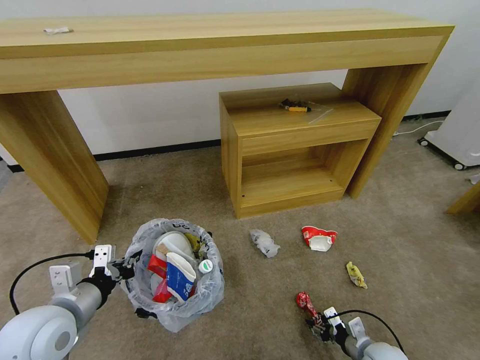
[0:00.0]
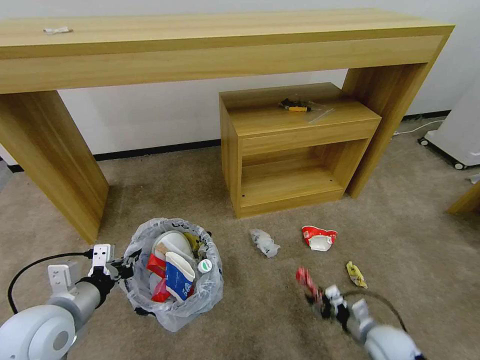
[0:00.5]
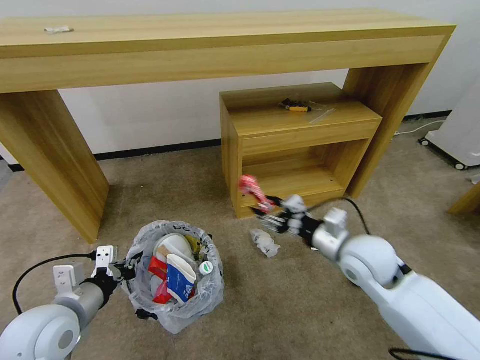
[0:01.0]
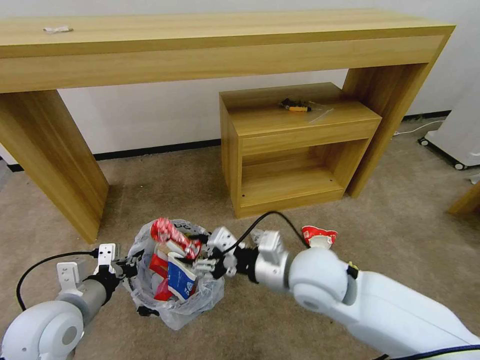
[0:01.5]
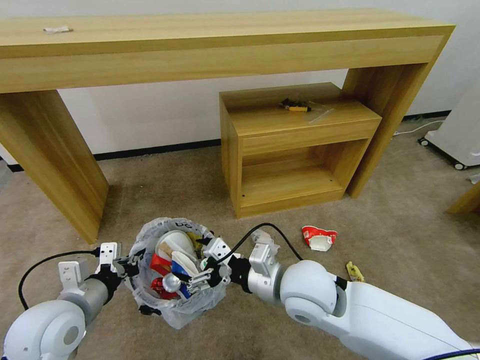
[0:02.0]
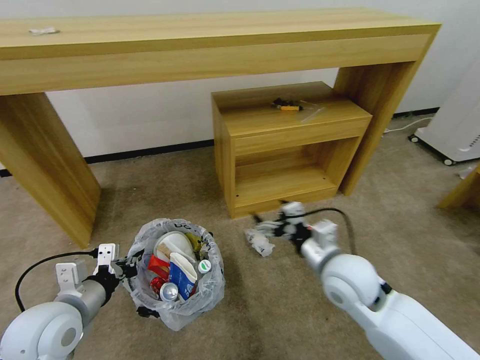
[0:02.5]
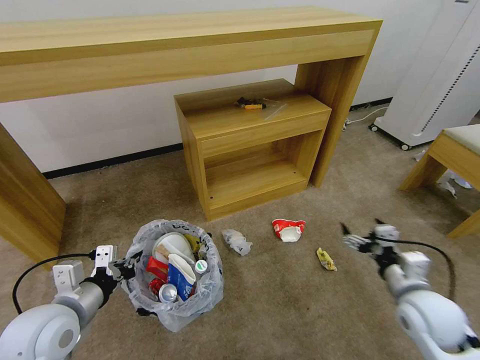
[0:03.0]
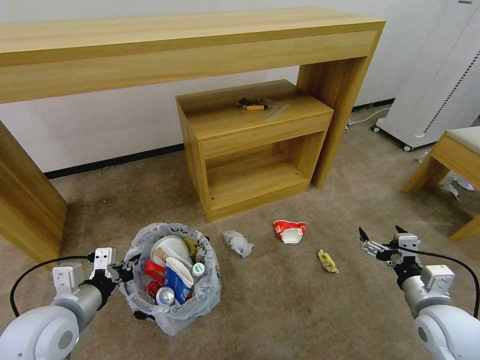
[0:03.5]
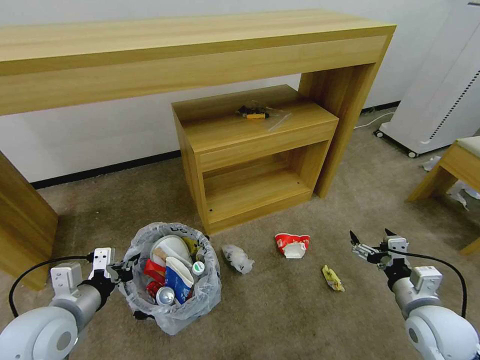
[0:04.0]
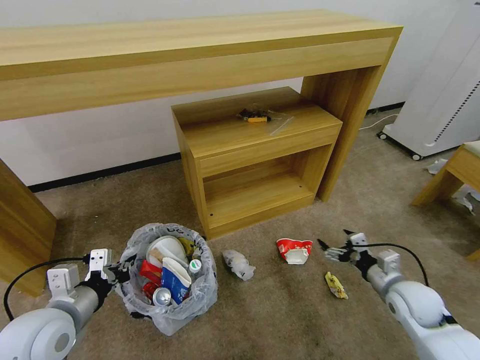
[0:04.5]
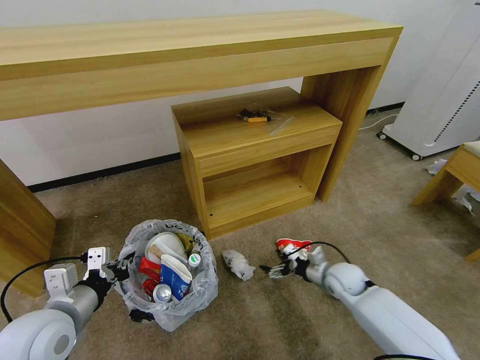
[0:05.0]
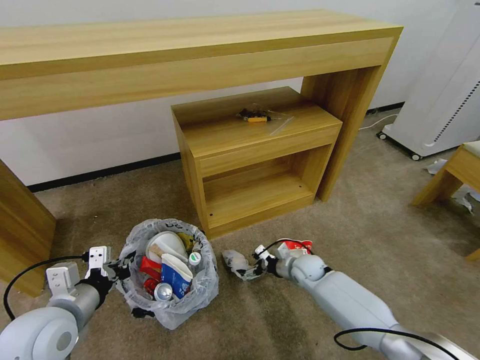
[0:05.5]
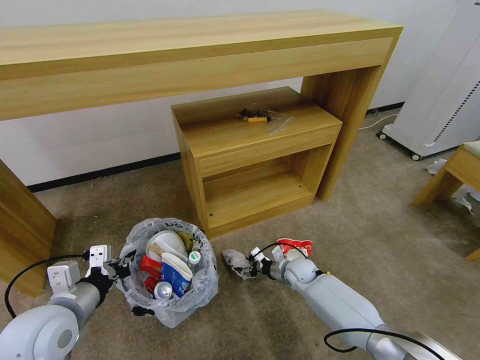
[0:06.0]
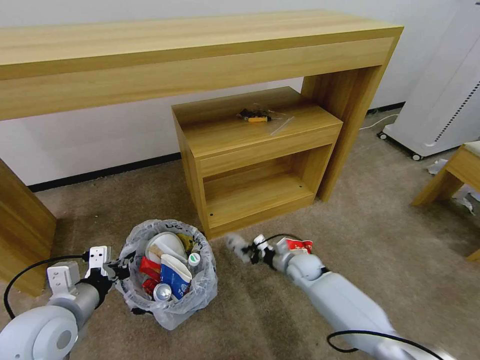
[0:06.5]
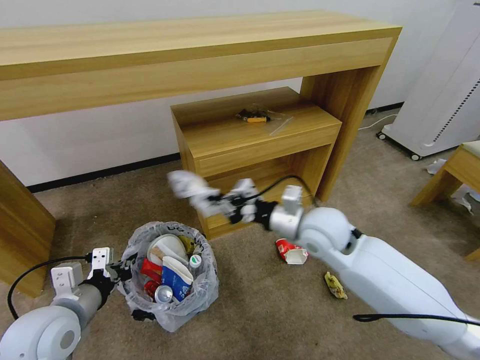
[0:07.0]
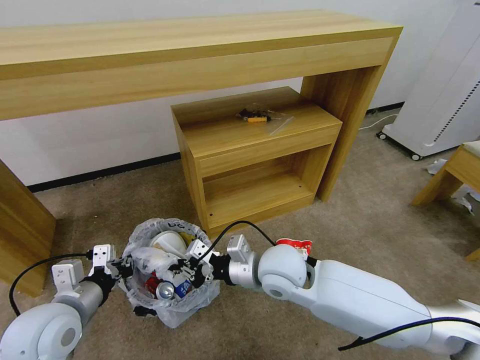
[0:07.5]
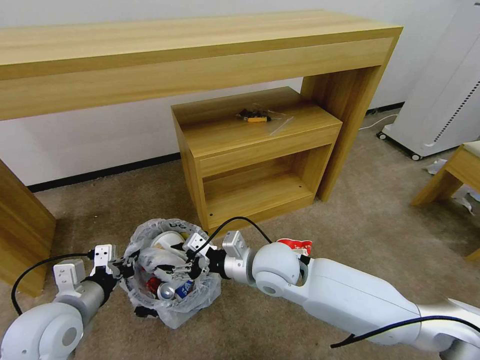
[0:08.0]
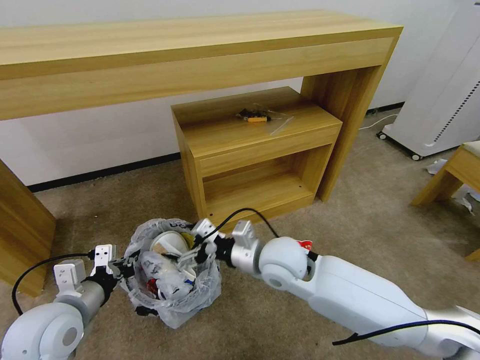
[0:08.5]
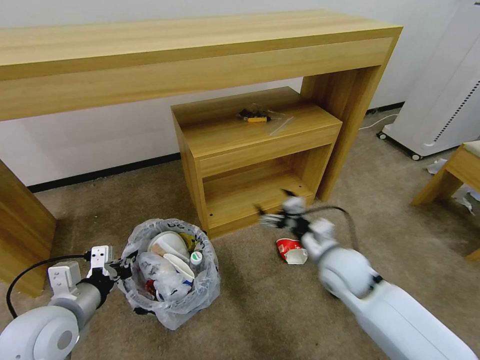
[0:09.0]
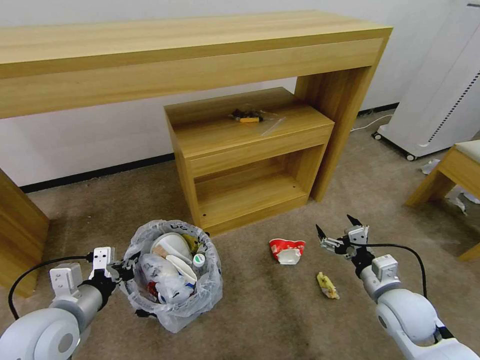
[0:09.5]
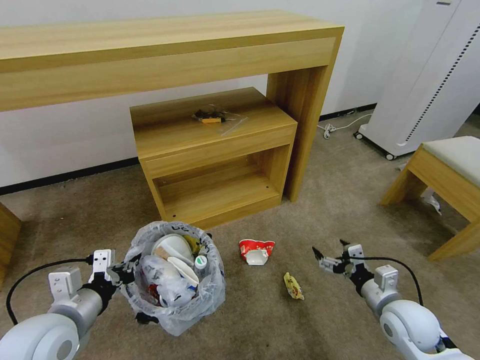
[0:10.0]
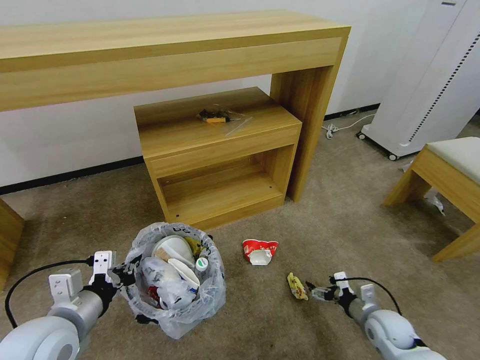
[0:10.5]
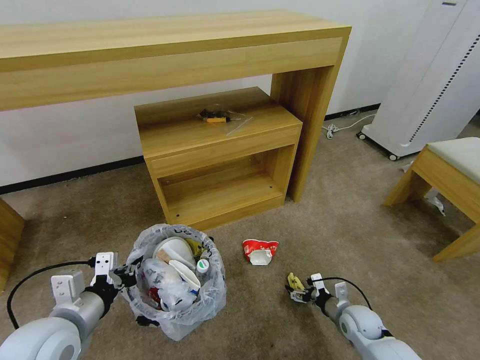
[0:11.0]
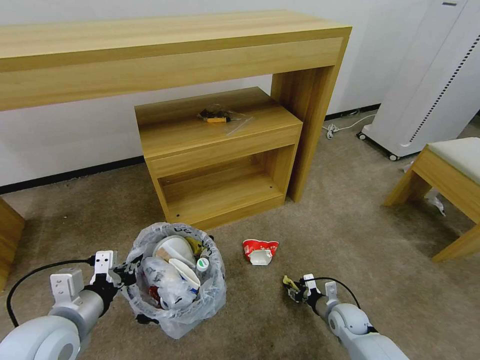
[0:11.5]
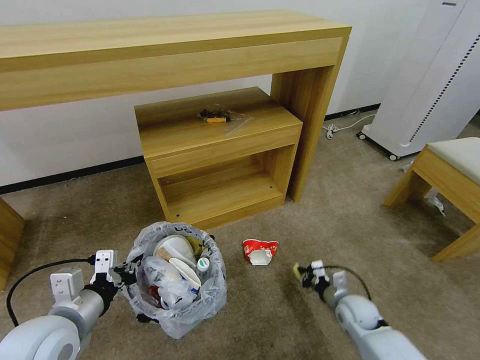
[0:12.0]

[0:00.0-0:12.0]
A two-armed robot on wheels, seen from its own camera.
Task of the whole recording: Pick up the trash bin and place the garbage on the floor into it.
0:00.0 to 0:02.0: The right gripper is displaced upward and to the left by some 35 cm, and opens.
0:02.0 to 0:04.0: The right gripper goes approximately 25 cm to the right.
0:04.0 to 0:06.0: The right gripper is displaced forward, downward and to the left by some 35 cm.
0:06.0 to 0:08.0: The right gripper moves upward, to the left and backward, roughly 30 cm, and closes and opens again.
0:08.0 to 0:10.0: The right gripper shifts about 30 cm to the right, and opens up.
0:10.0 to 0:12.0: The right gripper shifts roughly 15 cm downward and forward, and closes its fingers.

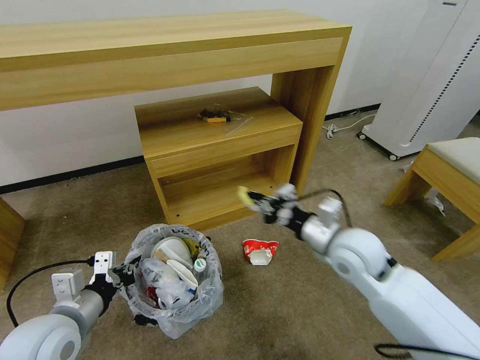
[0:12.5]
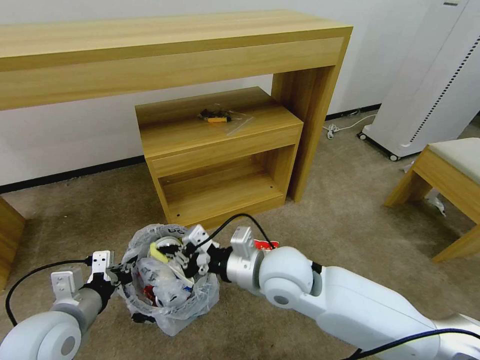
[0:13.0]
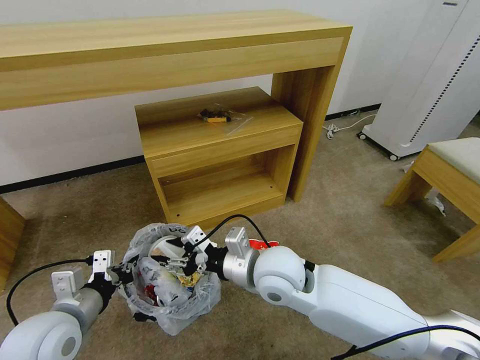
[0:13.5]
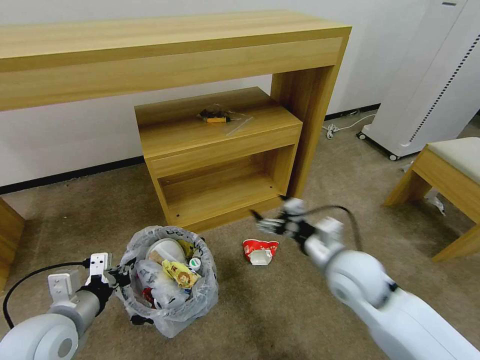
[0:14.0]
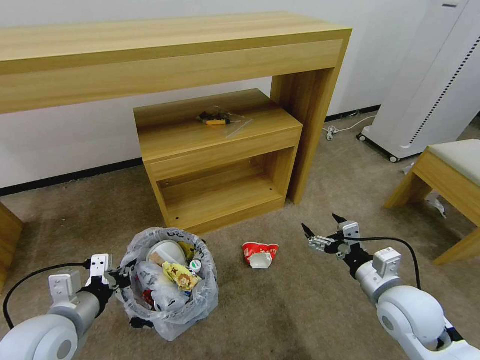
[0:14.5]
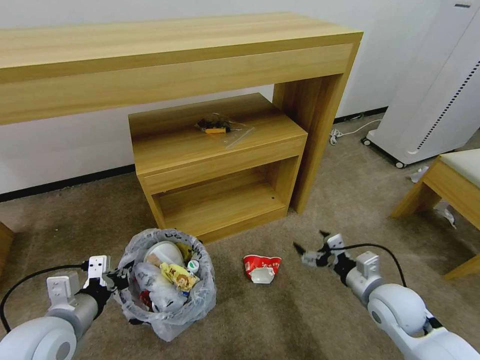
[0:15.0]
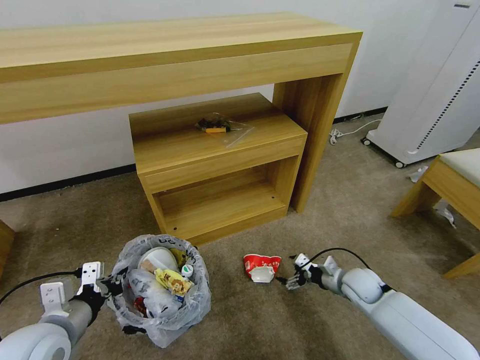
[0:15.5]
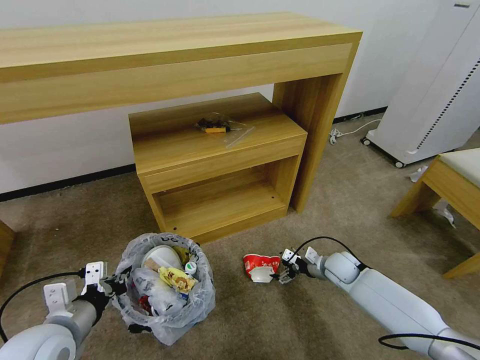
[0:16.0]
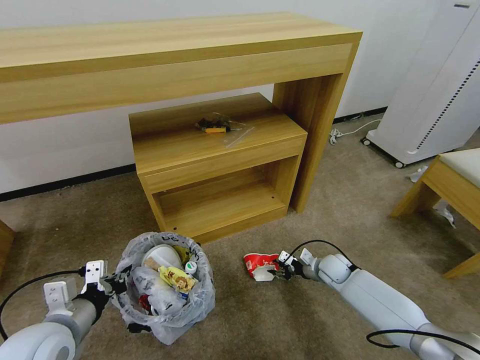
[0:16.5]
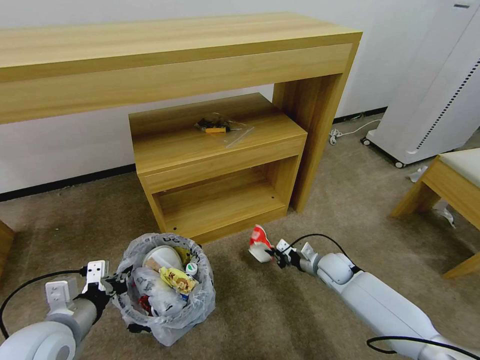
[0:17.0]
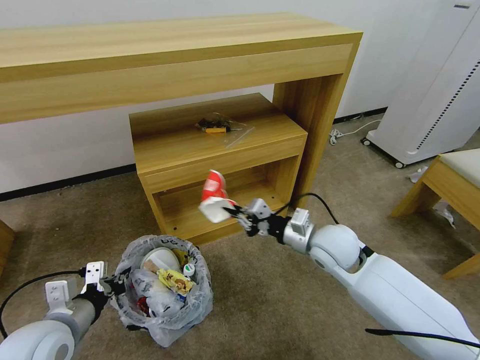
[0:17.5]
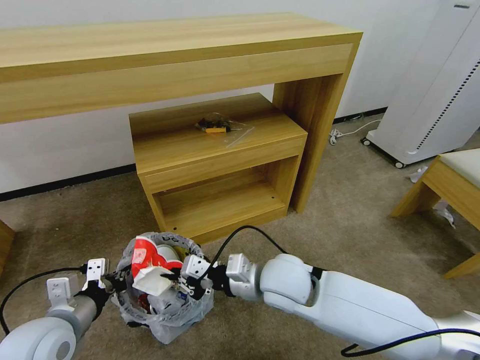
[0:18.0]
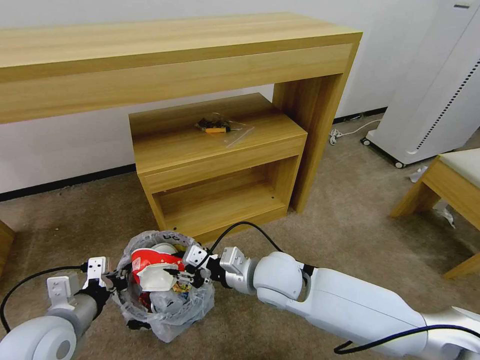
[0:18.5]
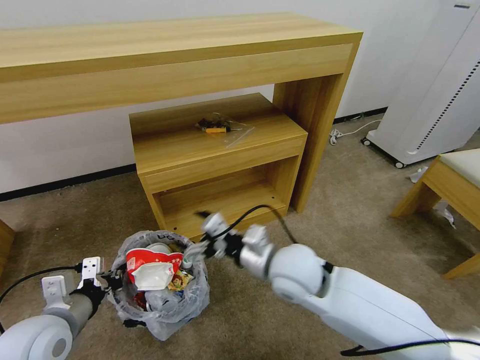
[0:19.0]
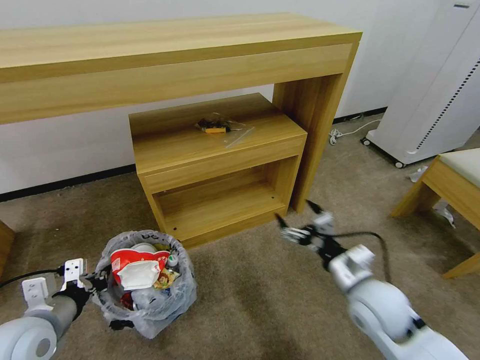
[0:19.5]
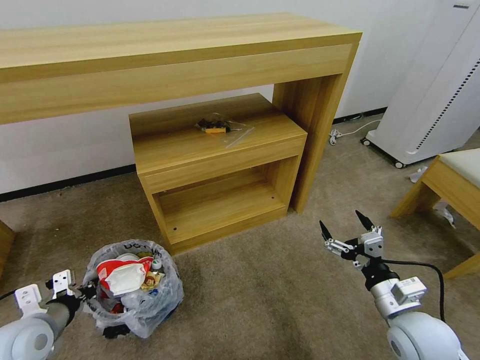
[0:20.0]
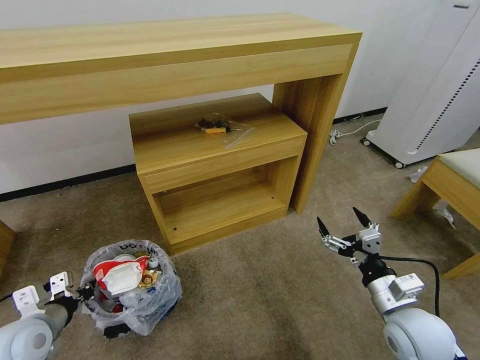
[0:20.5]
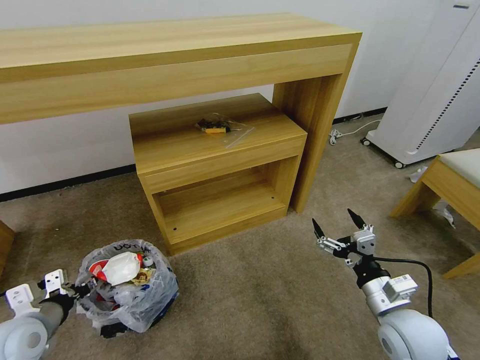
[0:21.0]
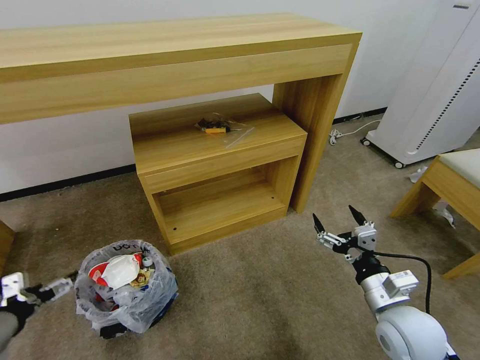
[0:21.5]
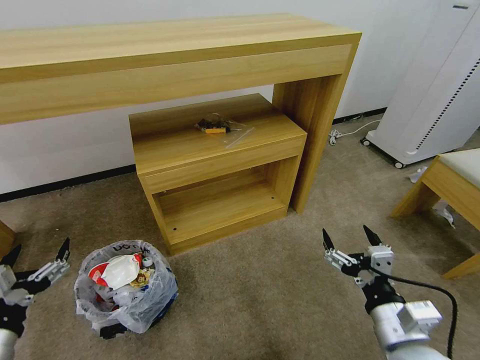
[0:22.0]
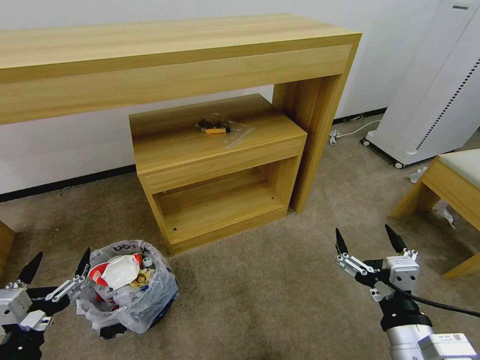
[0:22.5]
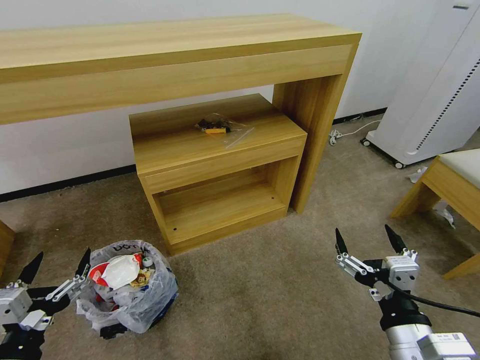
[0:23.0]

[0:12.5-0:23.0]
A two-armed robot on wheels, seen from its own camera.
Task of the whole recording: Pick up the trash bin and place the garbage on the floor into it.
0:12.5 to 0:14.5: The right gripper is displaced to the right, backward and downward by about 15 cm, and opens its fingers.
0:14.5 to 0:16.5: The right gripper moves downward and forward, approximately 25 cm, and closes up.
0:16.5 to 0:19.0: The right gripper shifts some 35 cm upward, to the left and backward, and opens up.
0:19.0 to 0:21.0: The left gripper heads to the left, covering some 5 cm, and opens; the right gripper shifts about 20 cm to the right and backward.
0:21.0 to 0:23.0: The right gripper shifts approximately 15 cm backward, upward and to the left; the left gripper moves backward and to the right, some 15 cm, and opens its fingers.
